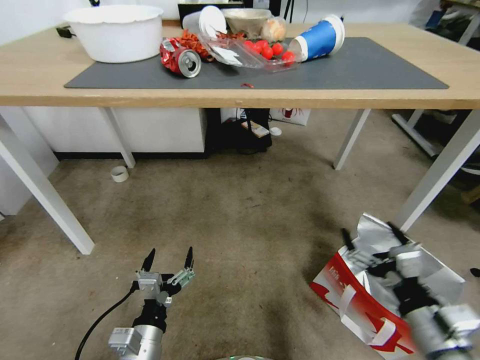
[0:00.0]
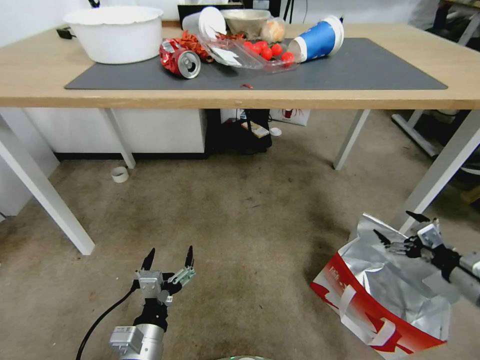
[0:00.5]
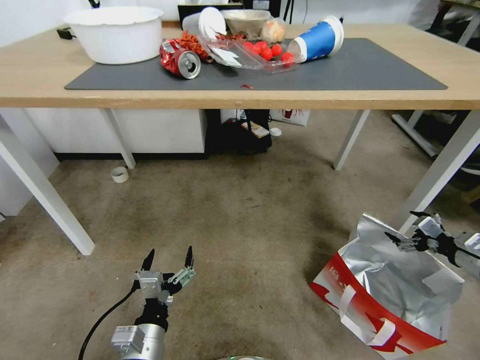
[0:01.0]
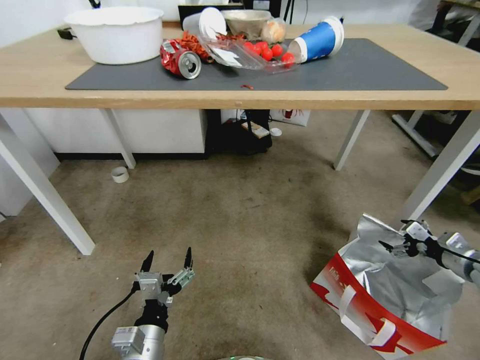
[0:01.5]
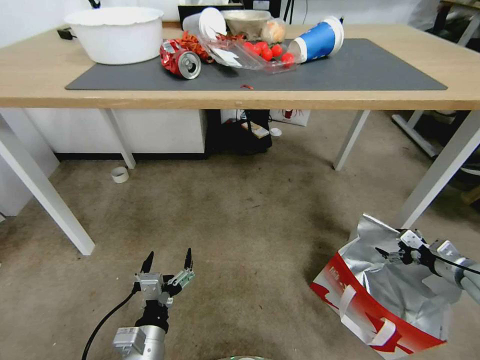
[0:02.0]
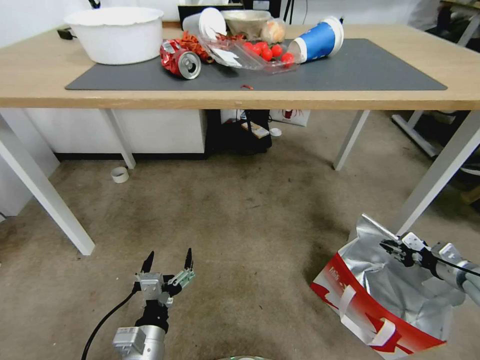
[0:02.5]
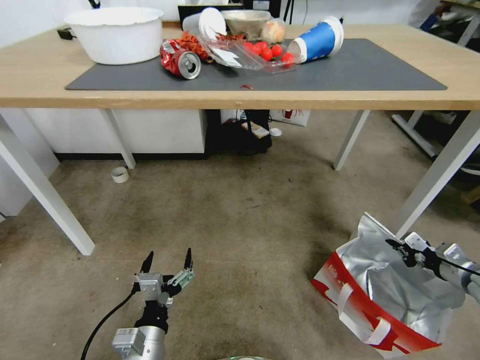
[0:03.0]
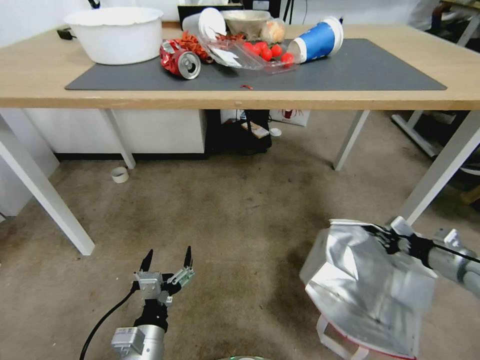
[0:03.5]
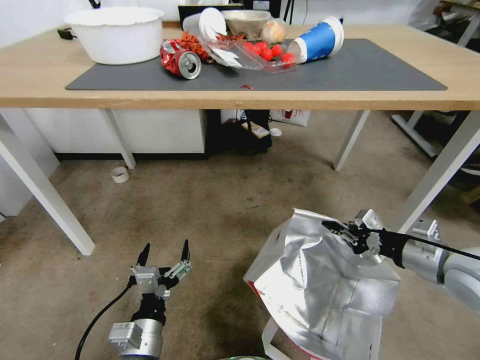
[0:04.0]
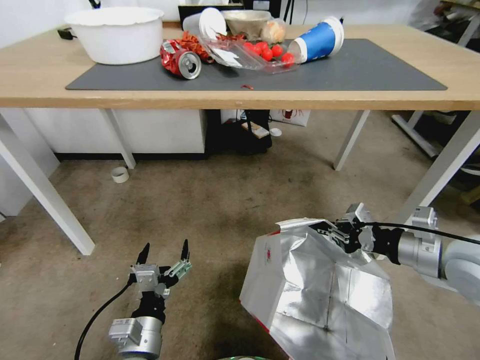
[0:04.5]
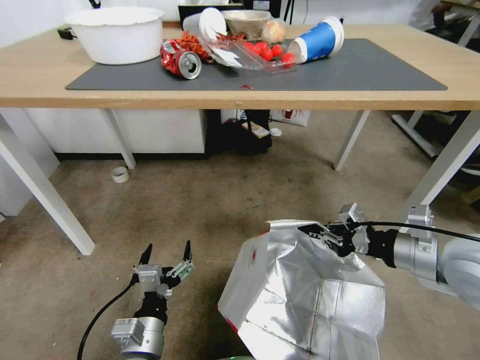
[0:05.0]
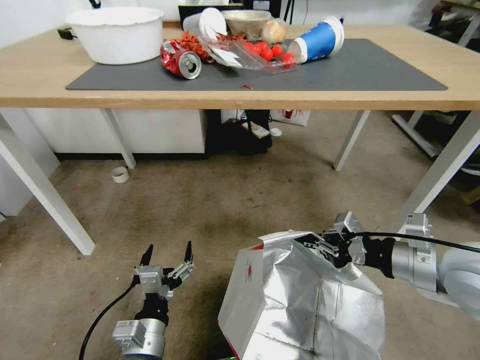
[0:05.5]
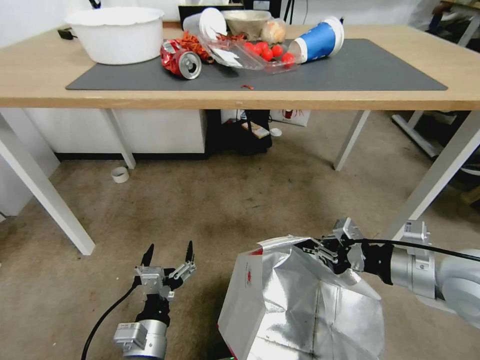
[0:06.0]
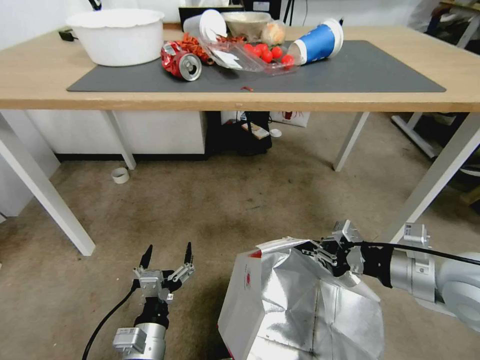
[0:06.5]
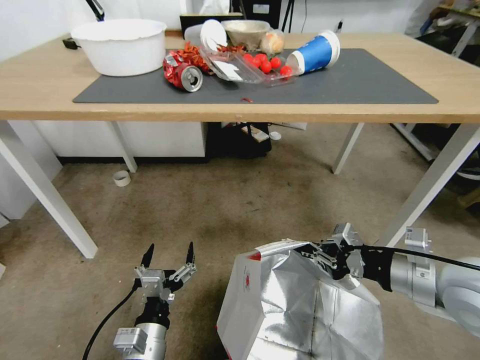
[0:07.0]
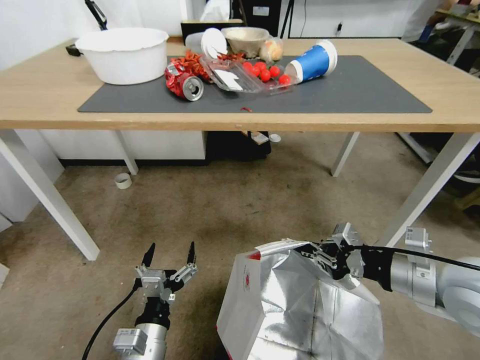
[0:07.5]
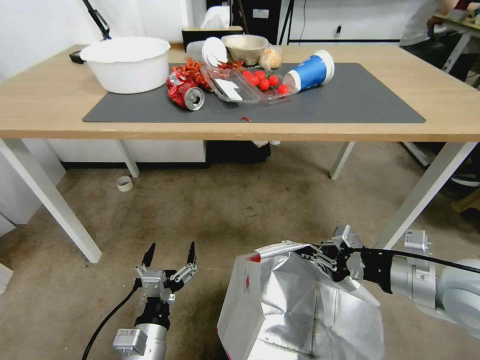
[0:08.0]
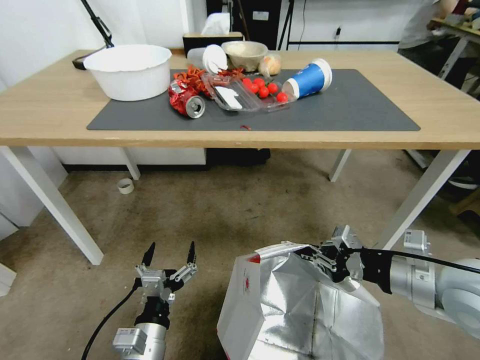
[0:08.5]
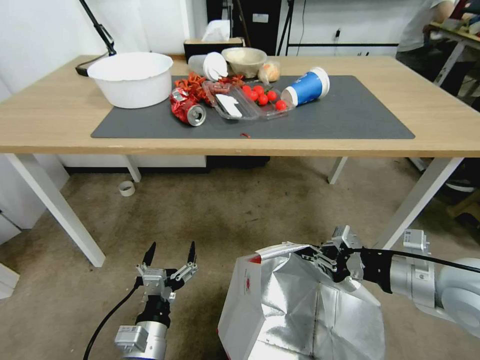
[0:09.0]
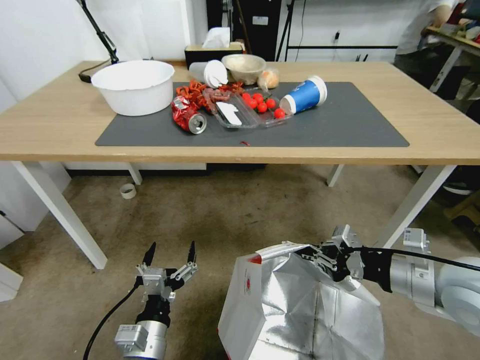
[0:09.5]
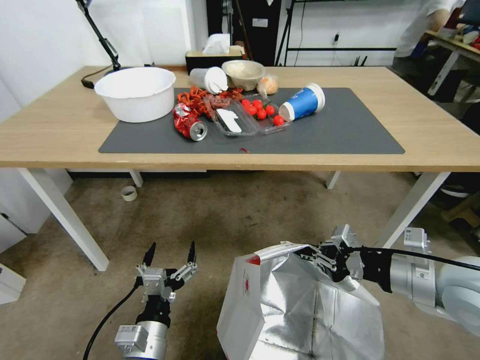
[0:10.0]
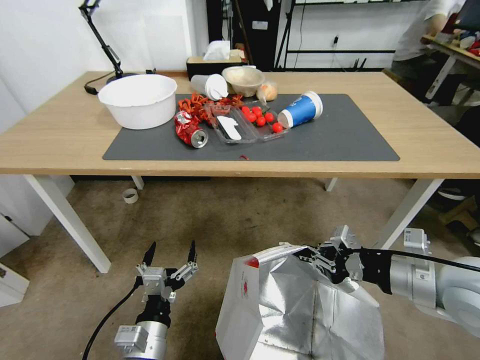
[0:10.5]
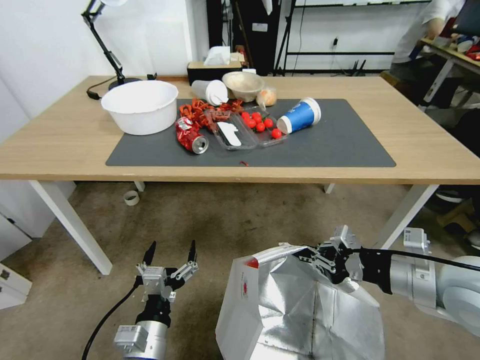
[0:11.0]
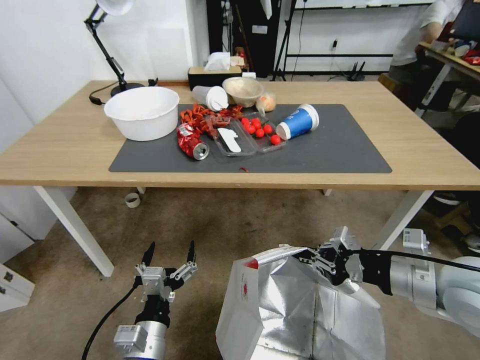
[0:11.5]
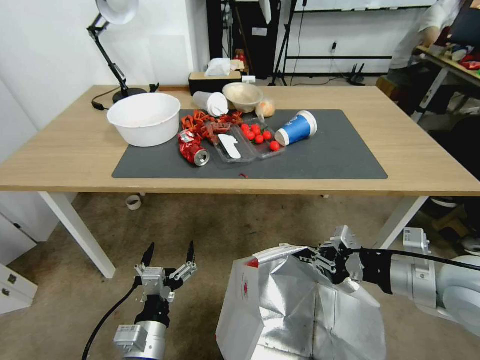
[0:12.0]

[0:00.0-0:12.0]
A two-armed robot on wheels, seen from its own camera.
Task of the whole recording: Pick up the food delivery bag from the floor and place it on the table.
0:00.0 to 0:02.0: The right gripper travels to the right and forward by roughly 30 cm.
0:02.0 to 0:04.0: The right gripper goes about 20 cm to the left and upward, and closes its fingers.
0:04.0 to 0:06.0: The right gripper is displaced to the left by about 5 cm.

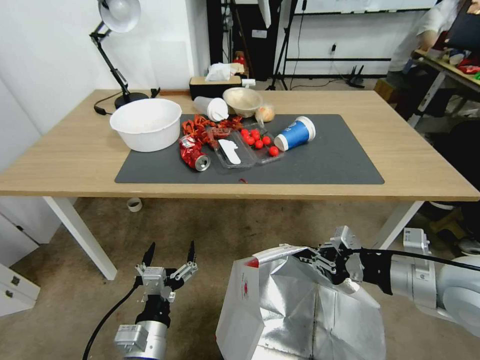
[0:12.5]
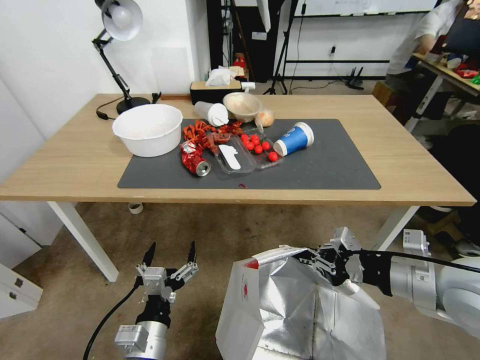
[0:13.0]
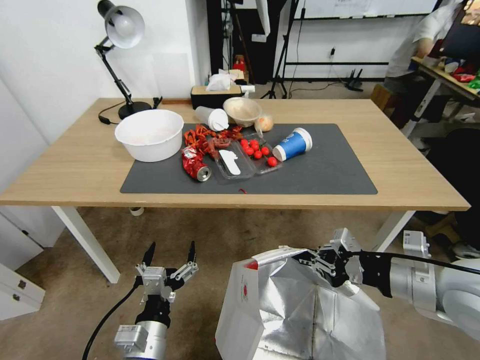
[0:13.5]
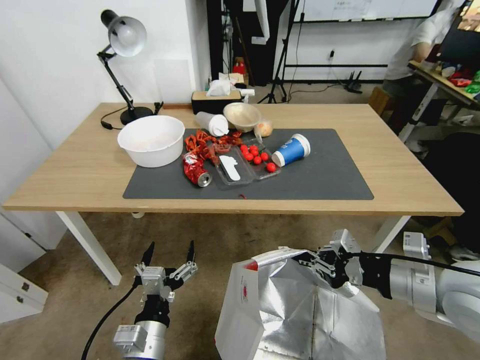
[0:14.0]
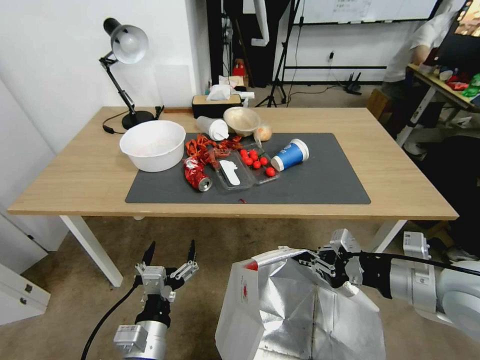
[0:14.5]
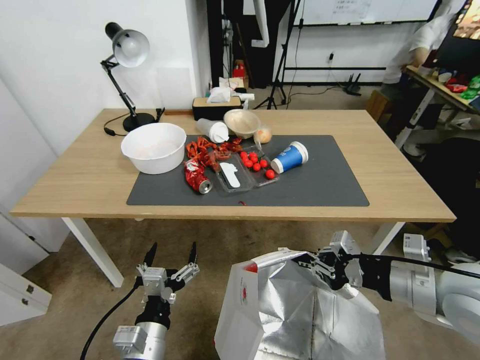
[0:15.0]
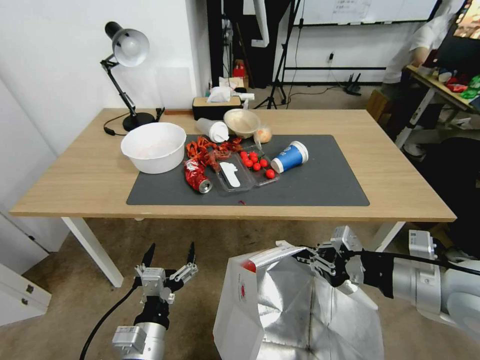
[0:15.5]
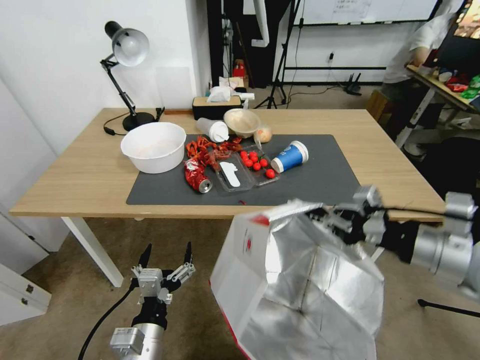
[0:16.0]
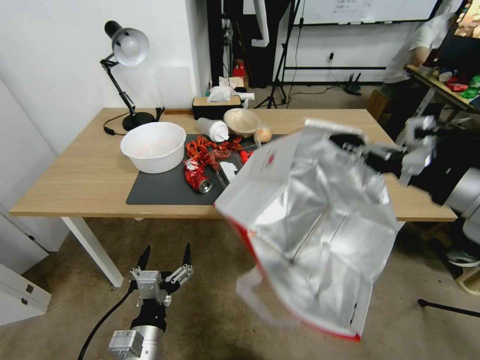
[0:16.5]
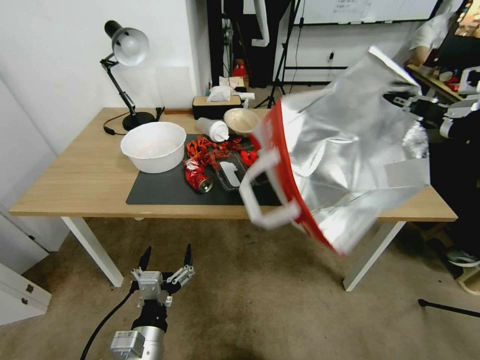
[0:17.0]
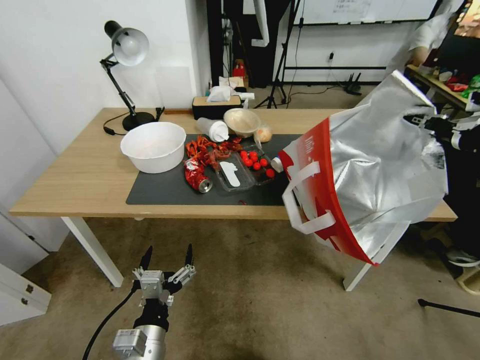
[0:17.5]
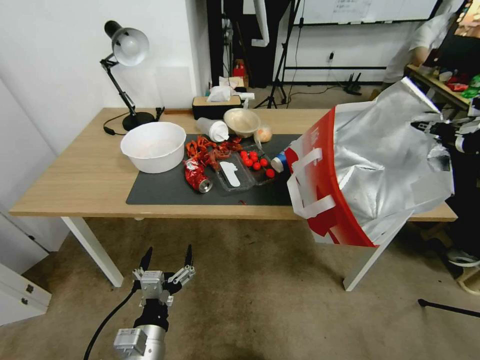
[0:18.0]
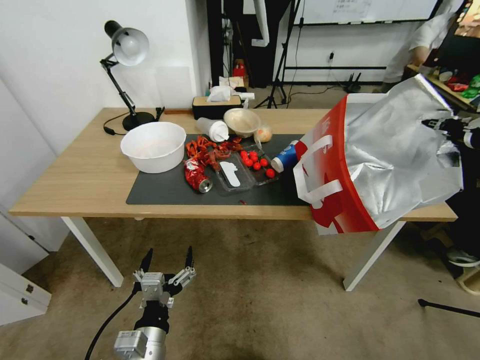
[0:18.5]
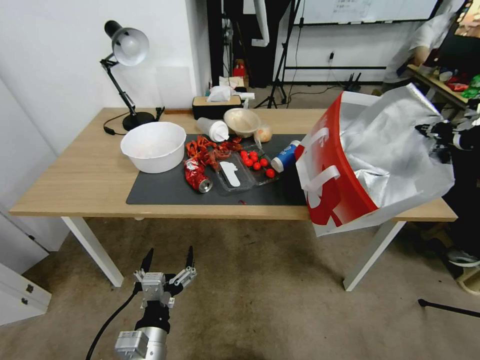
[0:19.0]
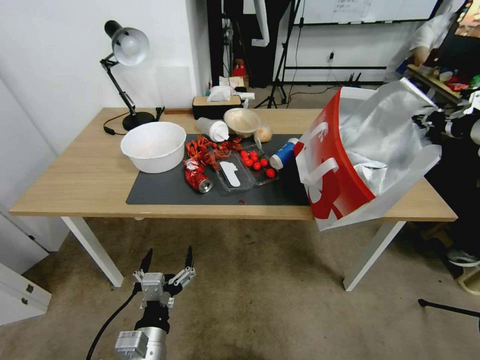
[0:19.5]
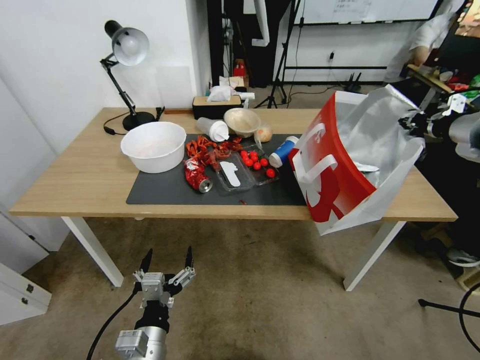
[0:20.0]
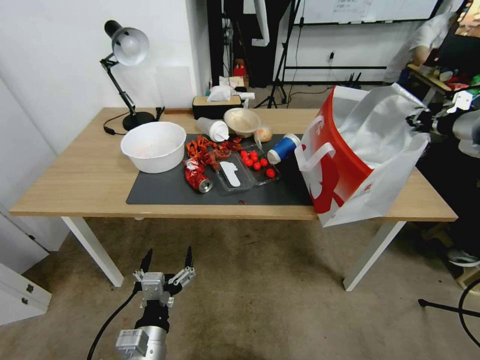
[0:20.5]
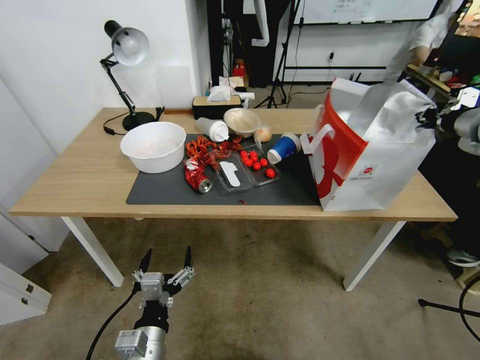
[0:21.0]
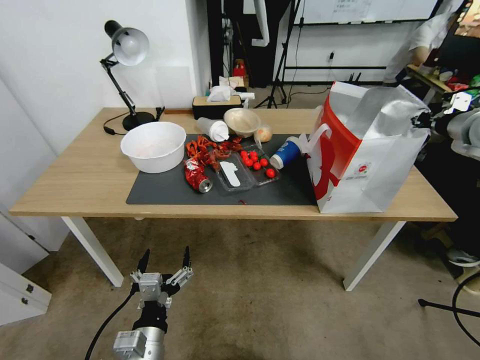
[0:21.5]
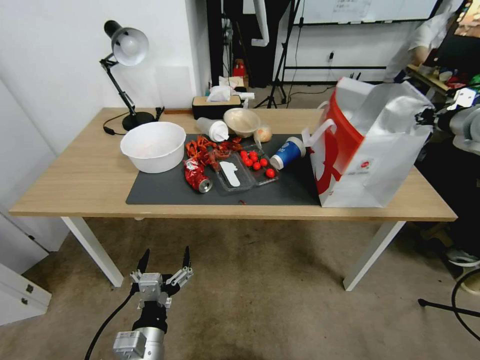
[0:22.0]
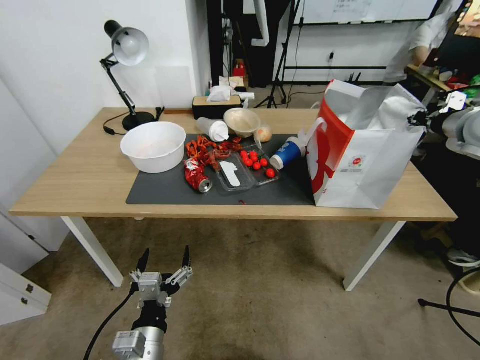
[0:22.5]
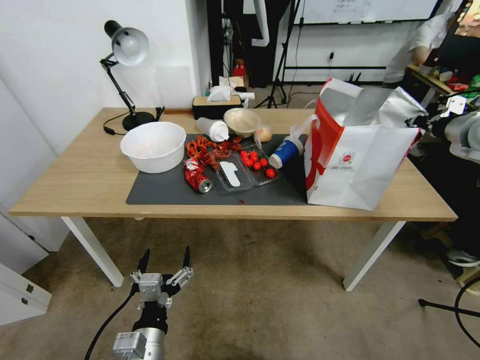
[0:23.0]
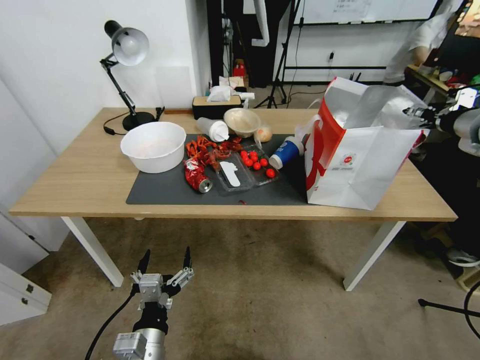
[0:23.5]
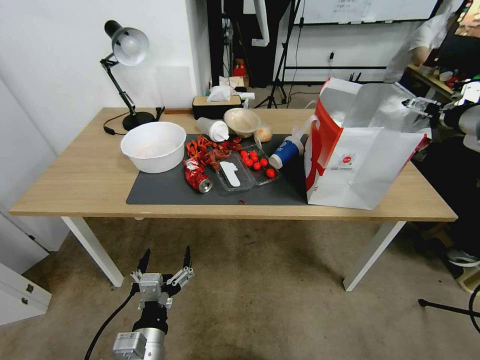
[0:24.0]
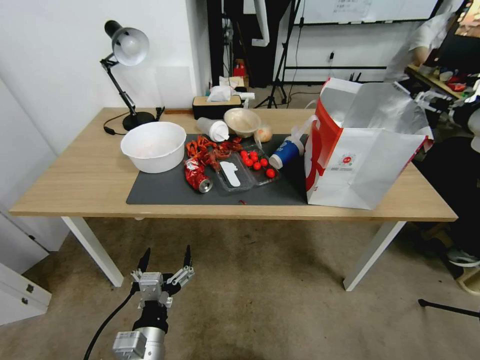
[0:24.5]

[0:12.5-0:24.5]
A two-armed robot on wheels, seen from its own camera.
Task of the whole recording: Pick up the food delivery bag from the floor and place it on the table.
0:14.5 to 0:16.5: The right gripper shifts approximately 15 cm upward.
0:16.5 to 0:18.5: The right gripper heads to the right and forward, covering roughly 15 cm.
0:18.5 to 0:20.5: The right gripper travels forward by roughly 10 cm.
0:20.5 to 0:22.5: There are only small adjustments of the grippers.
0:22.5 to 0:24.5: The right gripper heads backward, covering about 5 cm, and opens up.

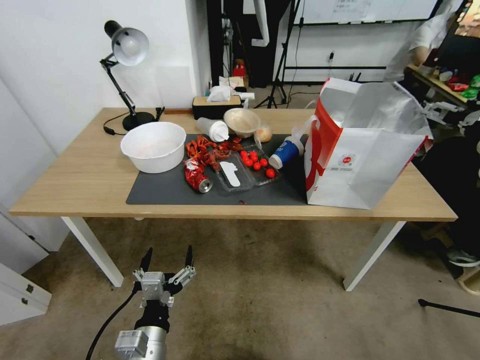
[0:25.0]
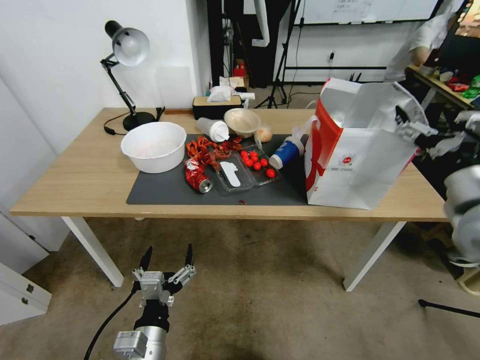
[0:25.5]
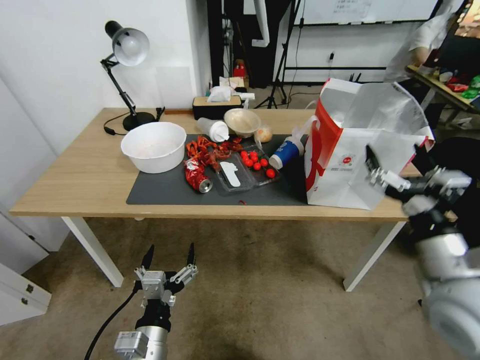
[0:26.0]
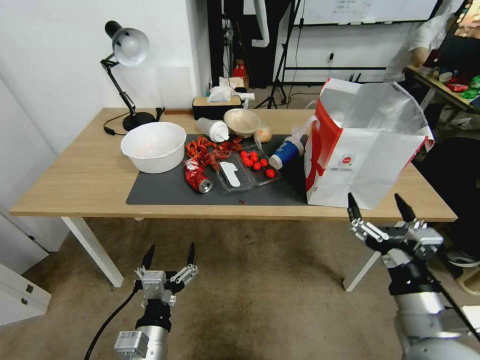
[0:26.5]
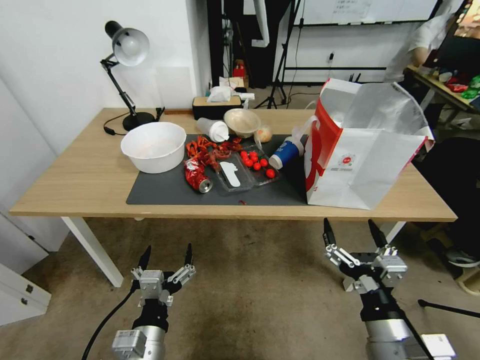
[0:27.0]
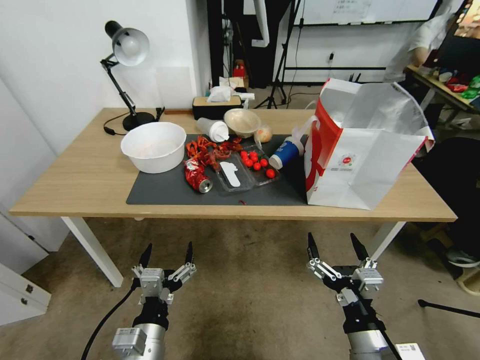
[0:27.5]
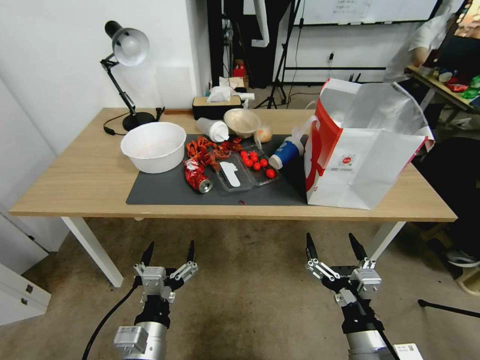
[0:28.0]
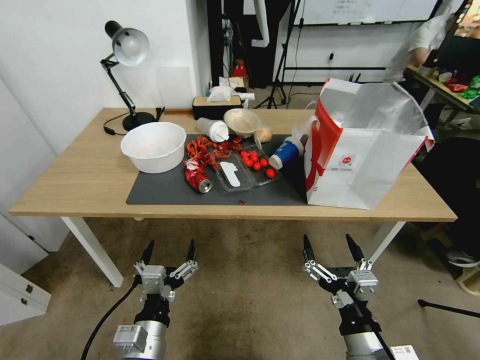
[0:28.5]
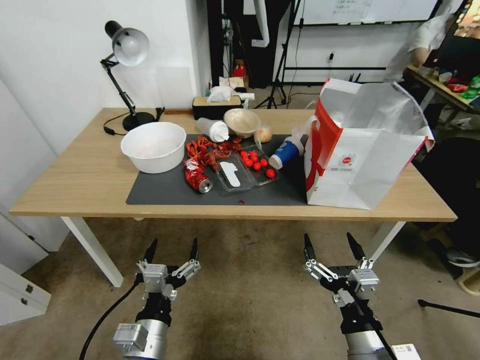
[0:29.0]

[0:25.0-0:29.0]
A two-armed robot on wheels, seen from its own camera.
Task of the whole recording: Pick up the food delivery bag from the floor and place it on the table.
0:25.0 to 0:27.0: The right gripper shifts roughly 40 cm backward, downward and to the left.
0:27.0 to 0:29.0: There are only small adjustments of the grippers.
